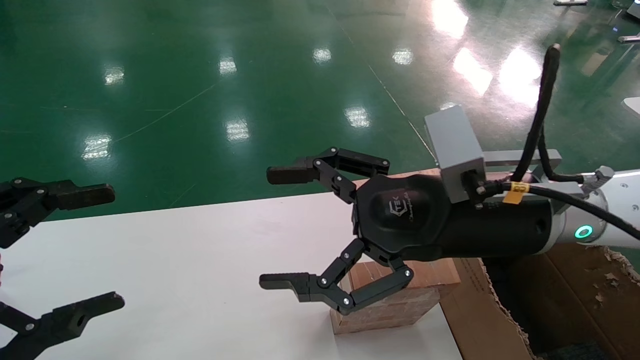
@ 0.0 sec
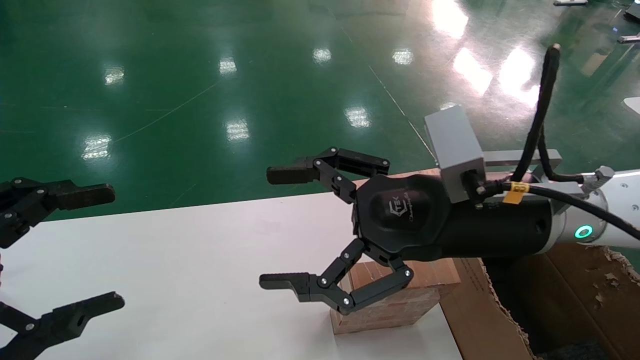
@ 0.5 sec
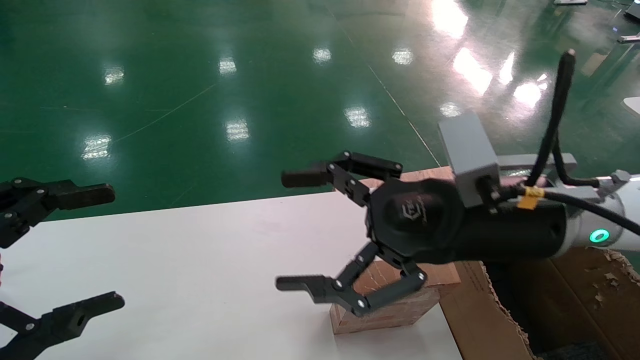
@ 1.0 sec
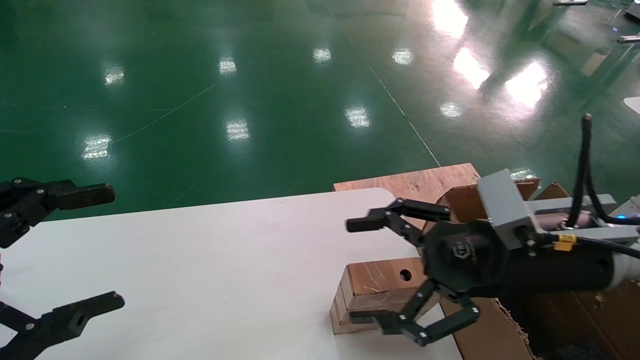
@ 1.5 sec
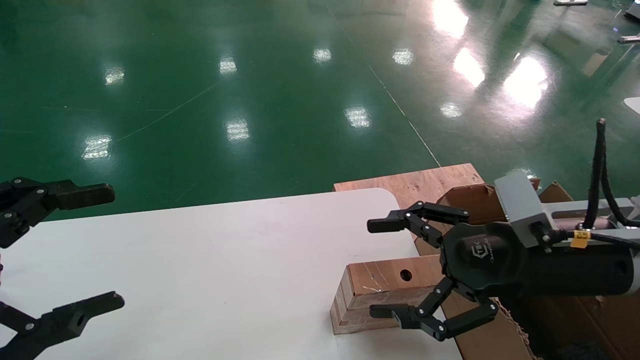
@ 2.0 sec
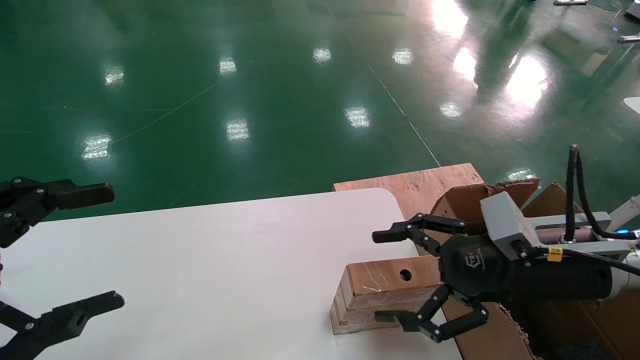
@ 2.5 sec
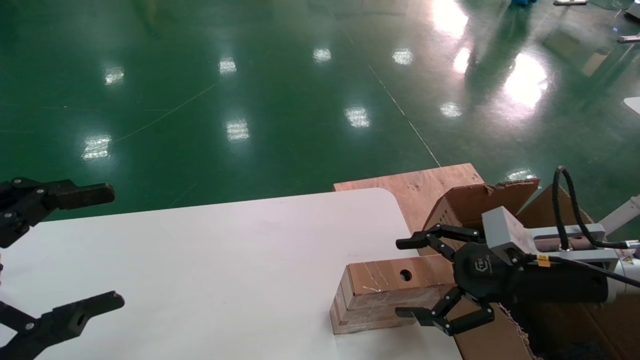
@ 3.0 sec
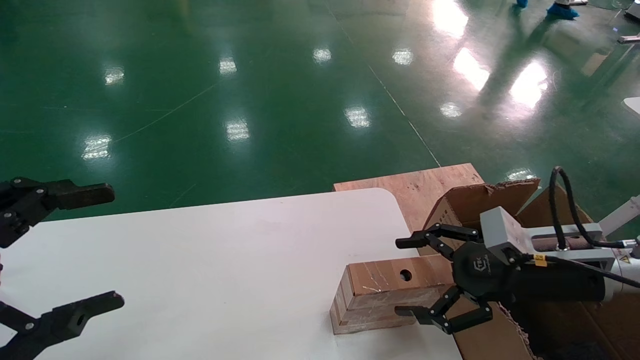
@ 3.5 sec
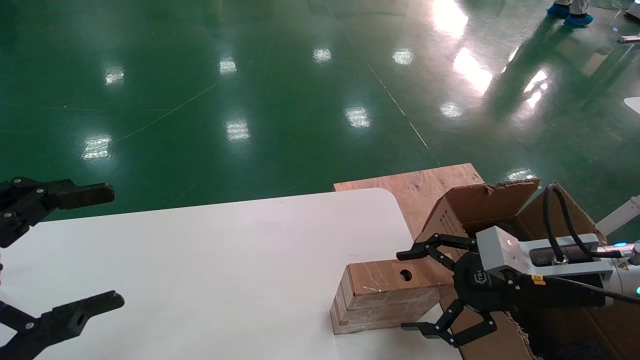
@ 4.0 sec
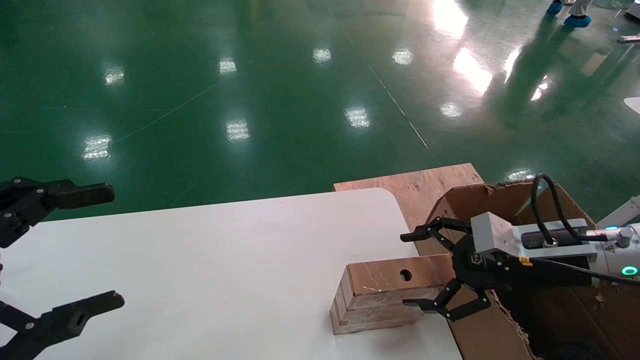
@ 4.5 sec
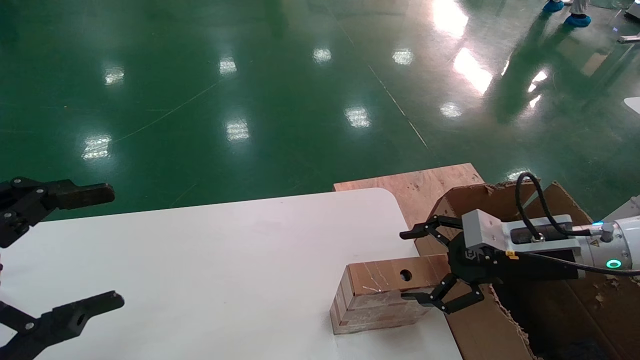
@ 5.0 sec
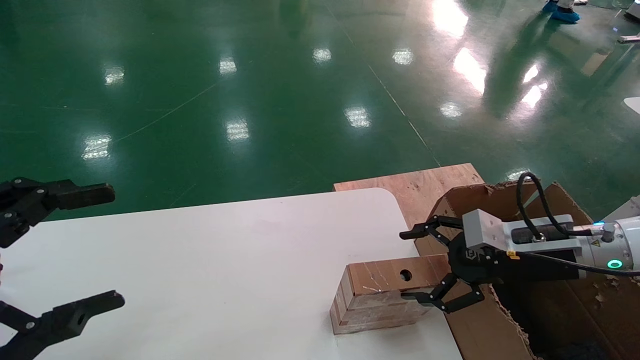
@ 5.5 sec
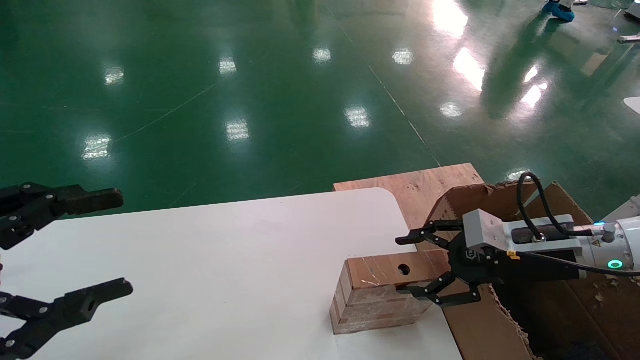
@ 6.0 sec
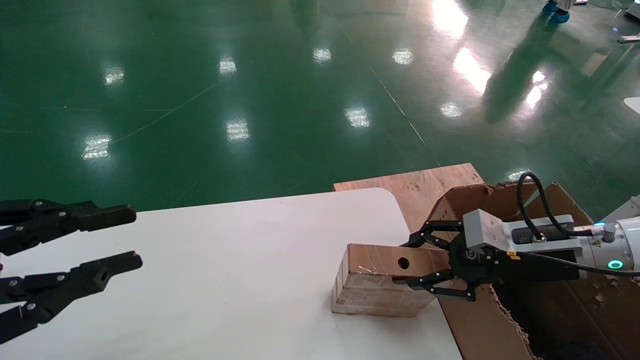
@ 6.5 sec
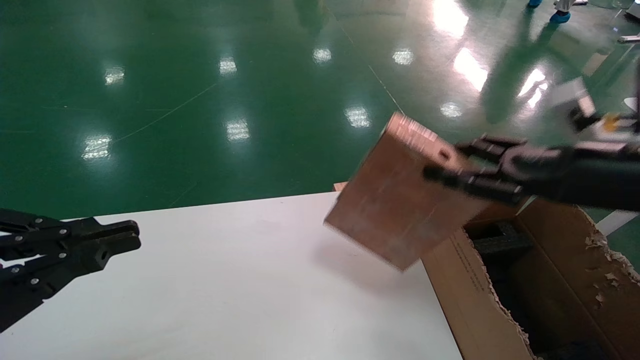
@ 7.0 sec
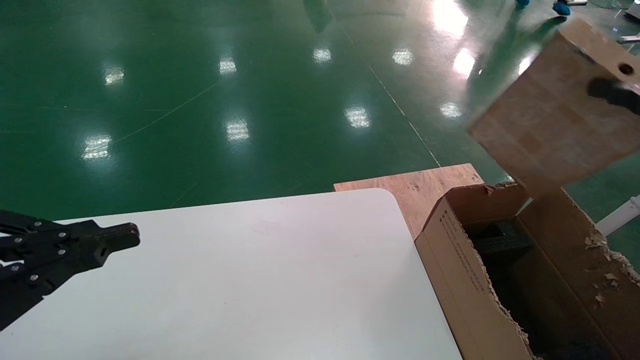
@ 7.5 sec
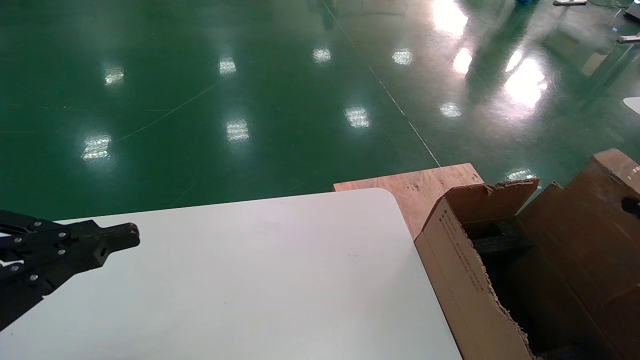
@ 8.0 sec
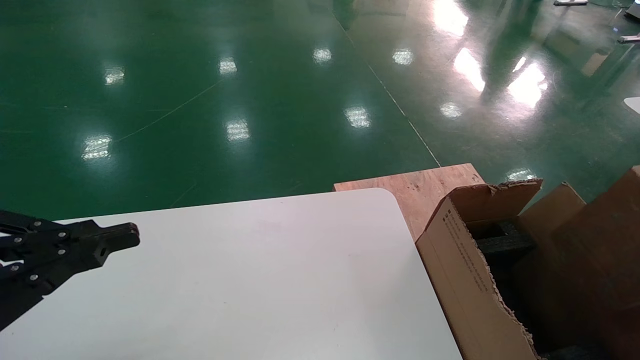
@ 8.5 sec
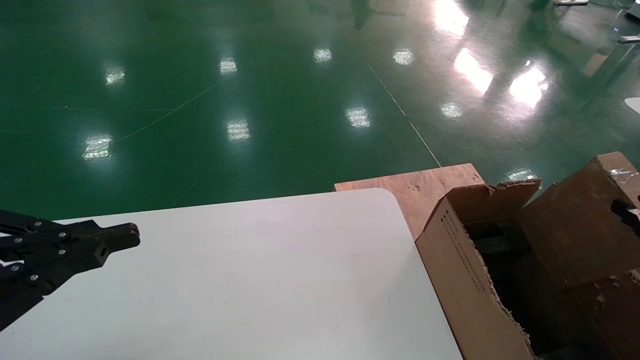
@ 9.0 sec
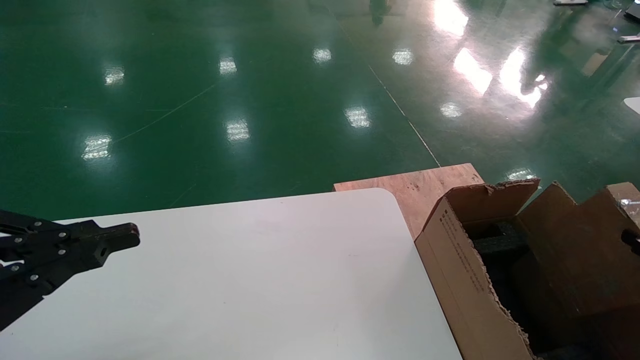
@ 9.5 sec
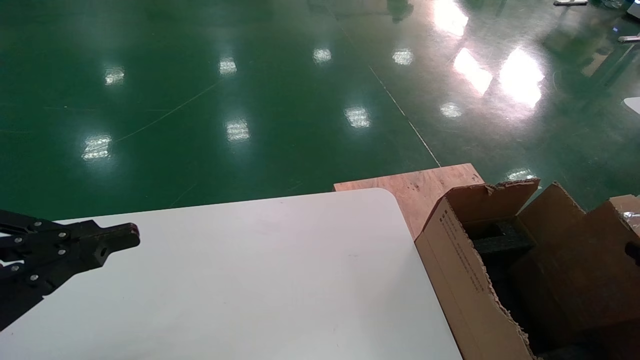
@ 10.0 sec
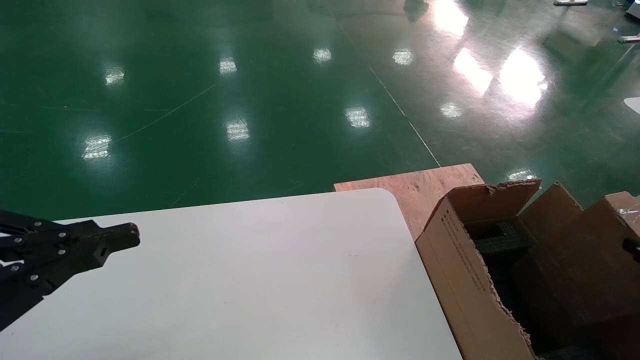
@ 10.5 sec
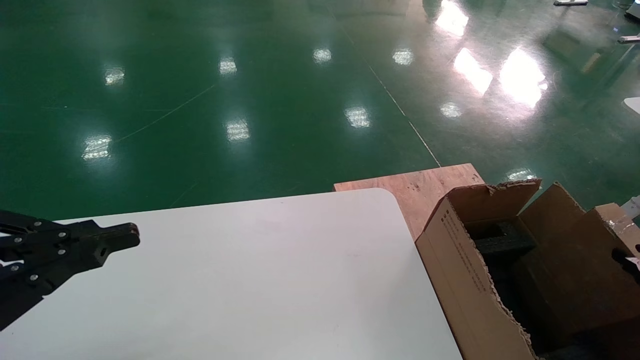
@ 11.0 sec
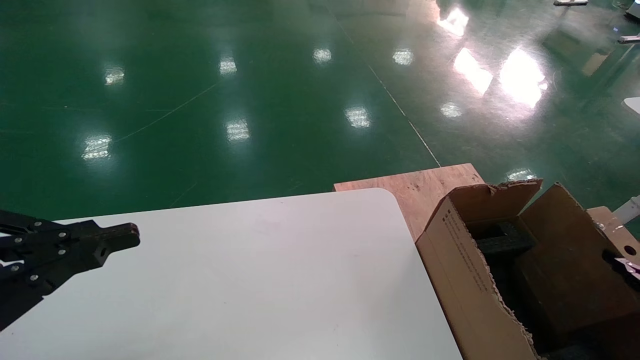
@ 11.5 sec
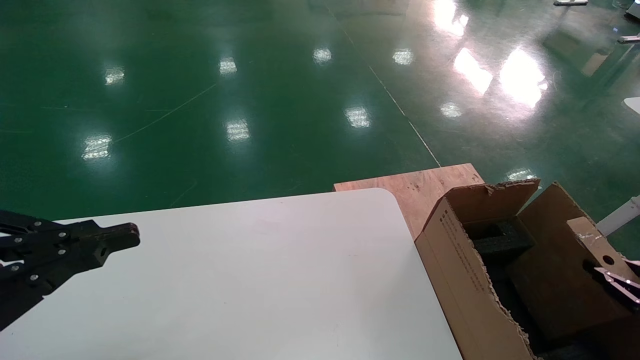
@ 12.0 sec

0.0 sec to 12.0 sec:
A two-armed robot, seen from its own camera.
Task of the whole recording: put the box on the table into the big box.
Step, 1.5 sec to 6.5 sec: Pick up the mouse and the power cord paper box.
0.0 sec to 2.0 sec: The right gripper heads to the right and downward, covering approximately 10 cm.
2.0 sec to 4.0 sec: The right gripper is displaced downward and to the right by some 10 cm.
4.0 sec to 6.0 sec: The grippers make only small movements.
6.0 sec to 8.0 sec: The right gripper is displaced backward, to the right and upward by about 25 cm, and closes its fingers. Meanwhile the left gripper closes its fingers.
8.0 sec to 10.0 sec: The right gripper travels downward by some 10 cm.
10.0 sec to 12.0 sec: The right gripper moves downward, about 5 cm.

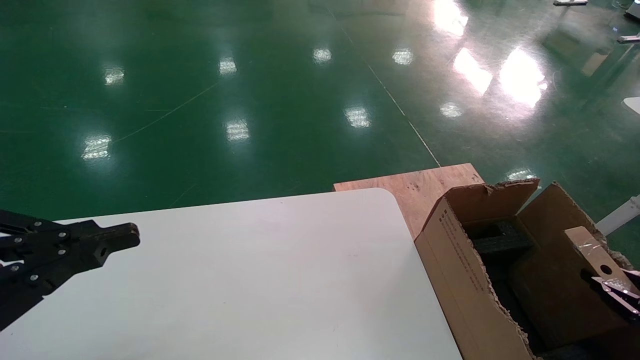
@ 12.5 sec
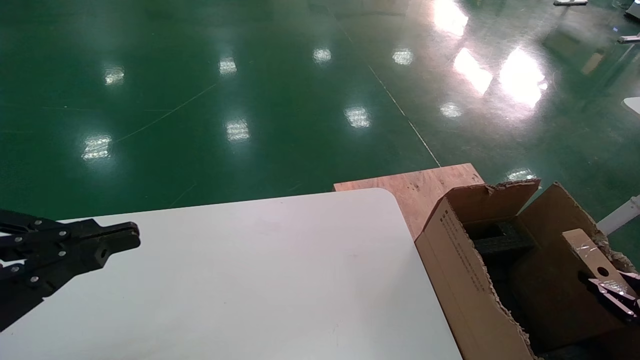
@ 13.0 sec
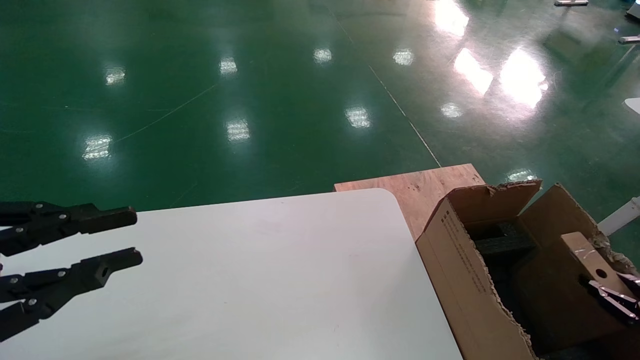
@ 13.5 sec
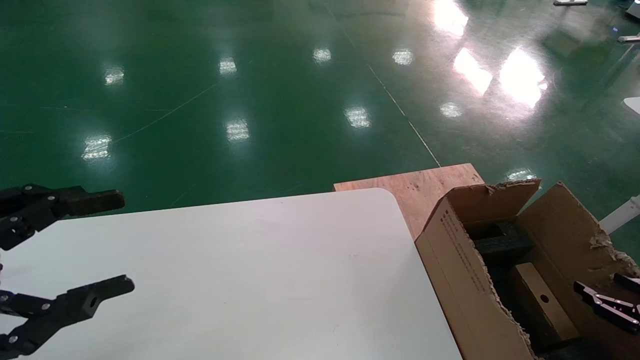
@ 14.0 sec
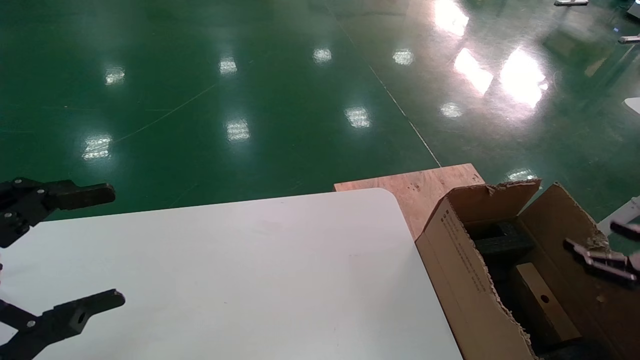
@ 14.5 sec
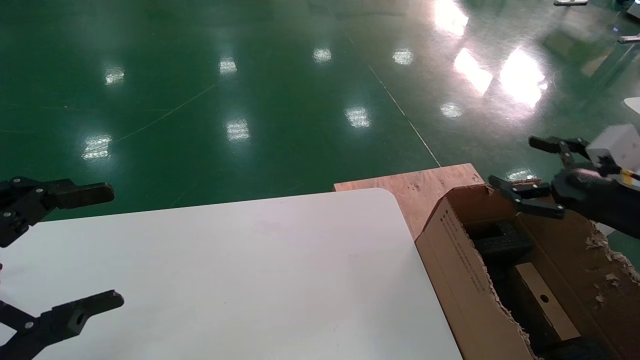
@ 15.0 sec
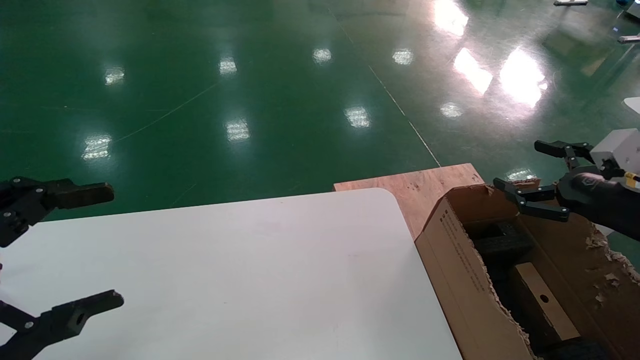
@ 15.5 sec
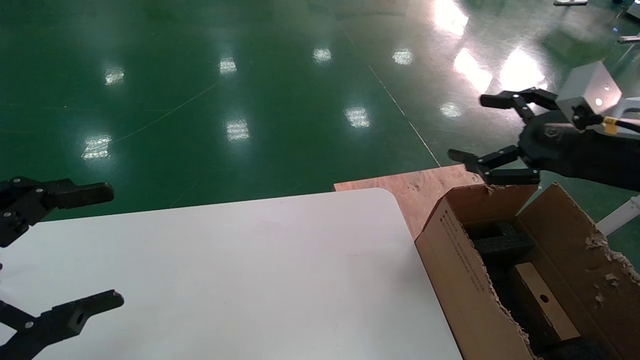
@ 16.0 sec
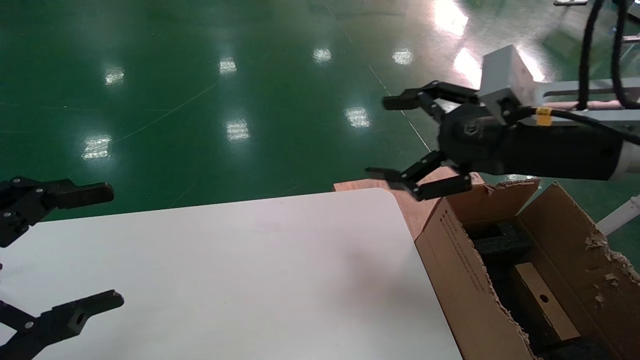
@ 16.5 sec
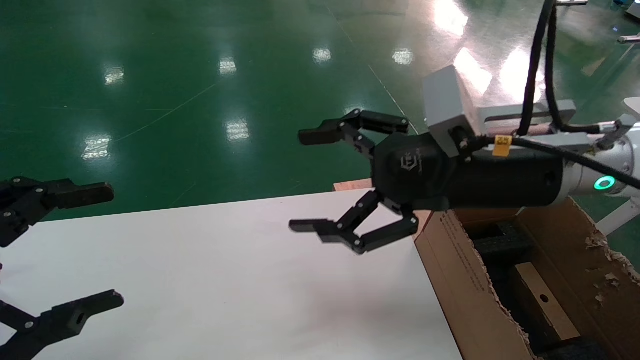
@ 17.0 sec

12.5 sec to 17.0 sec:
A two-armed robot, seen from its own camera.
Task of the whole recording: put the box on the table into the big box.
12.5 sec to 14.5 sec: The right gripper travels upward by approximately 5 cm, and opens its fingers. Meanwhile the left gripper opens its fingers.
14.5 sec to 17.0 sec: The right gripper heads to the left and upward, covering approximately 40 cm.

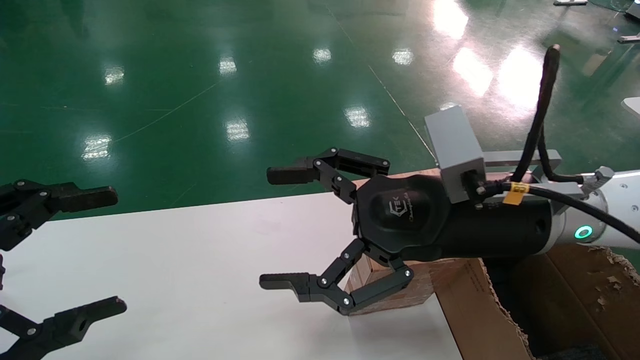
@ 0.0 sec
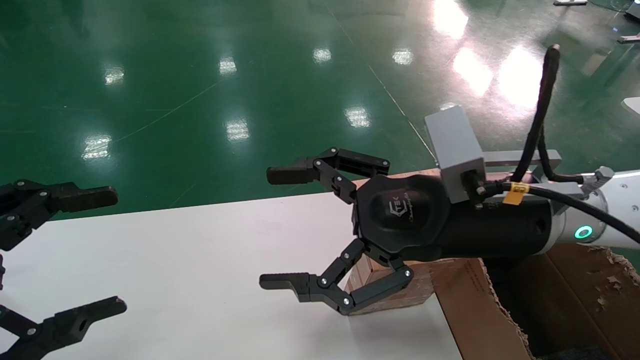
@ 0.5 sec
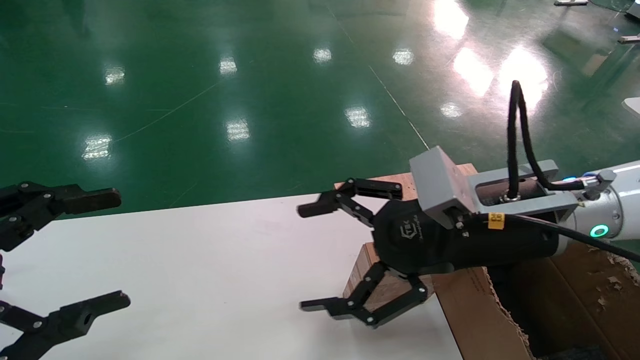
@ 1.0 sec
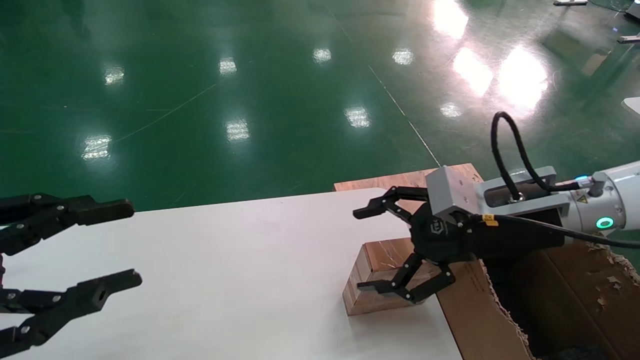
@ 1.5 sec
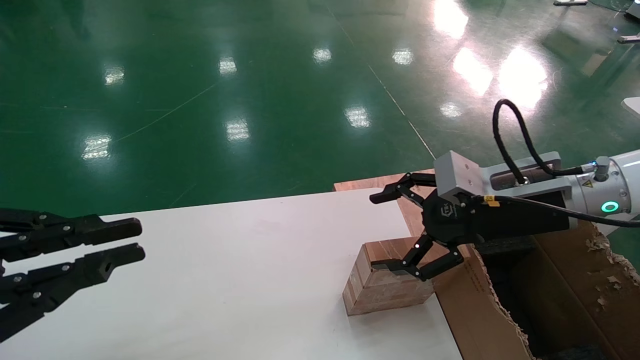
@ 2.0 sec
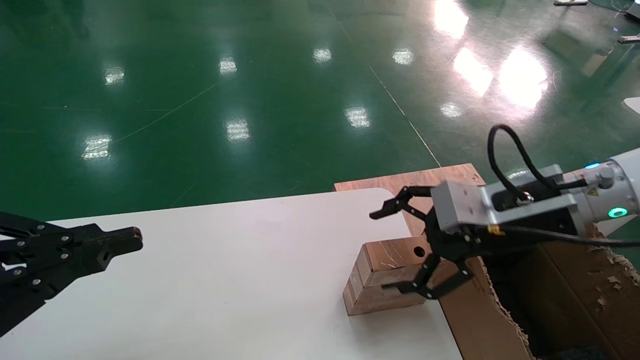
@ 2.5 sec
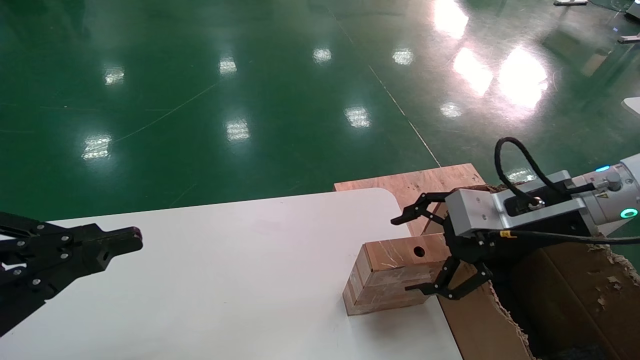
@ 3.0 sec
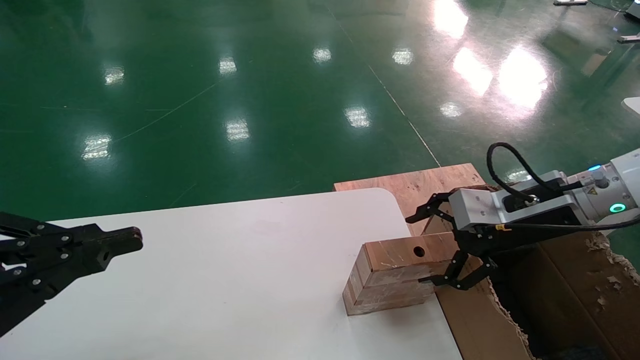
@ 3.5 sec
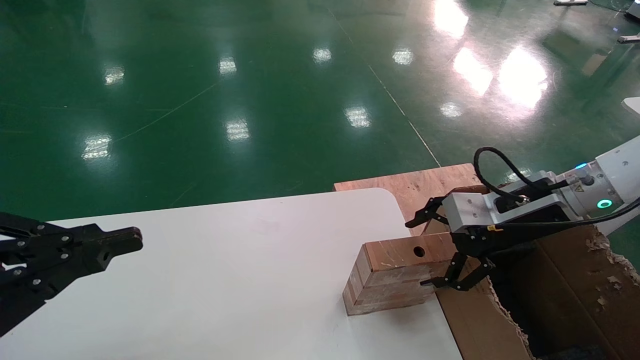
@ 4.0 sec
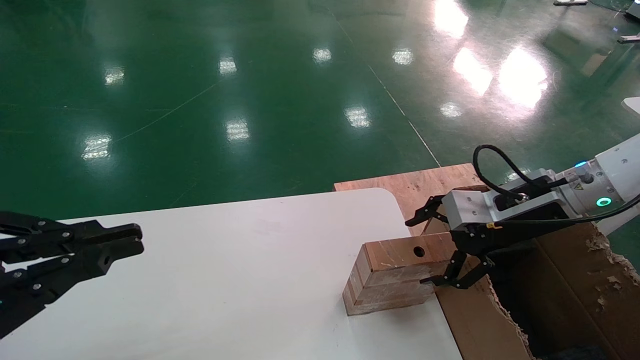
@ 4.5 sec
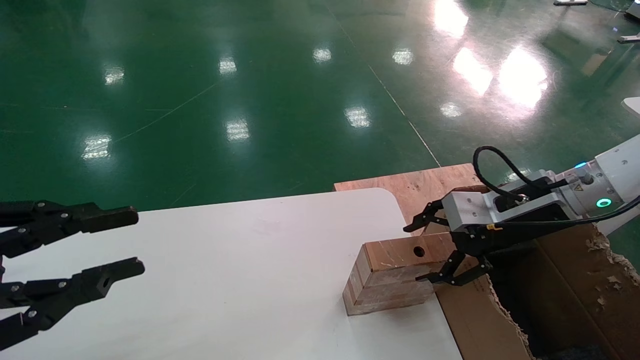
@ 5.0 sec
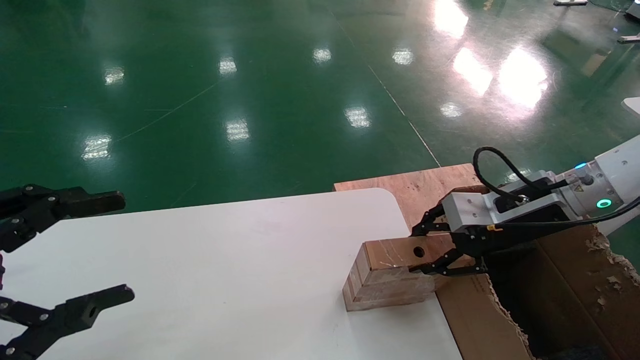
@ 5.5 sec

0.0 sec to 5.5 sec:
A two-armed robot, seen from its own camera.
Task of the whole recording: put the box on the table into the big box.
0.0 sec to 2.0 sec: The left gripper closes up. The right gripper shifts about 10 cm to the right.
2.0 sec to 3.5 sec: The right gripper changes place by some 5 cm.
3.5 sec to 5.5 sec: The right gripper closes; the left gripper opens up.
